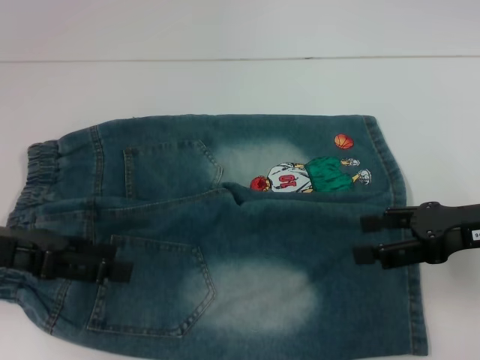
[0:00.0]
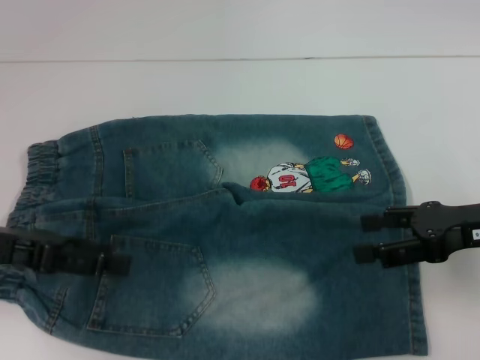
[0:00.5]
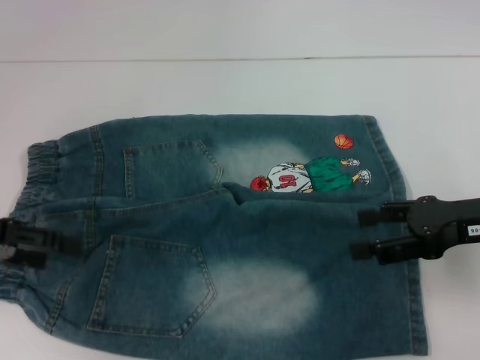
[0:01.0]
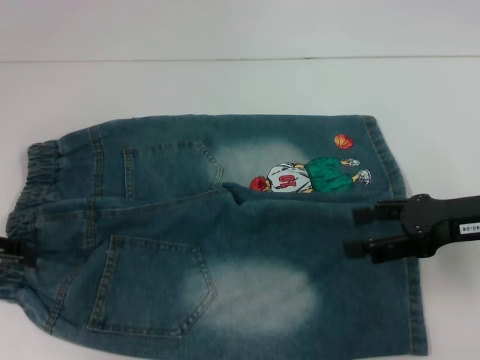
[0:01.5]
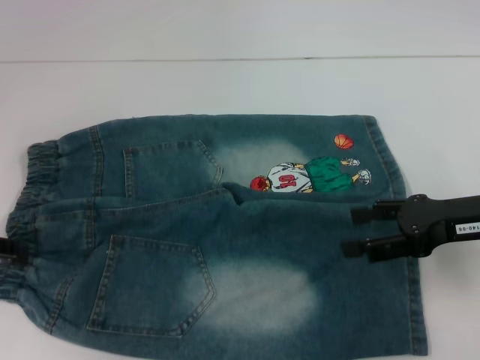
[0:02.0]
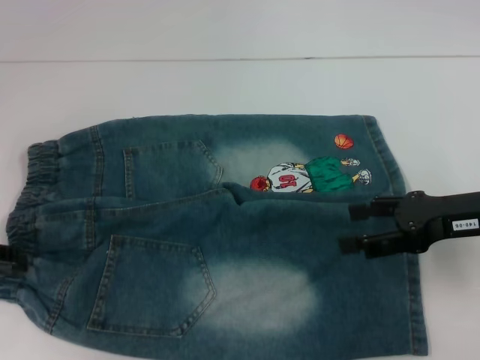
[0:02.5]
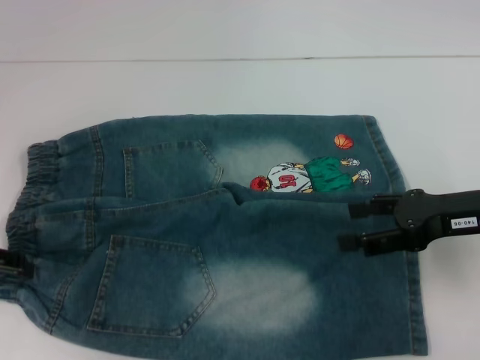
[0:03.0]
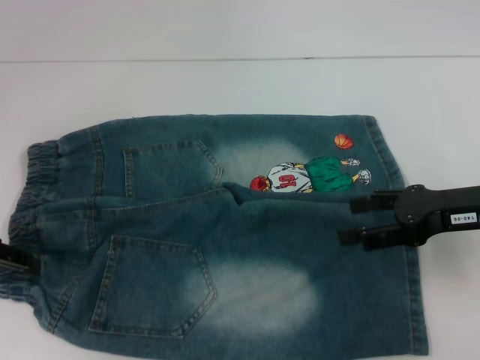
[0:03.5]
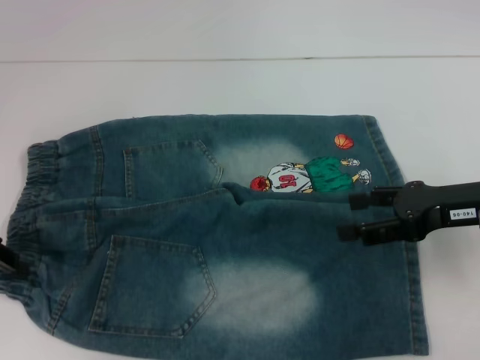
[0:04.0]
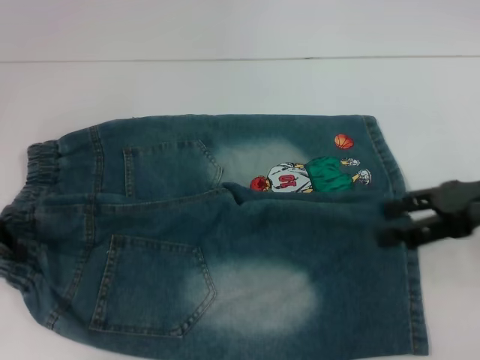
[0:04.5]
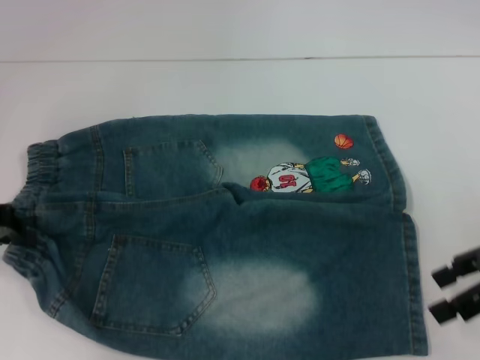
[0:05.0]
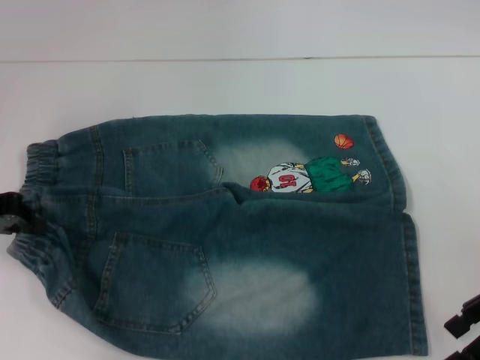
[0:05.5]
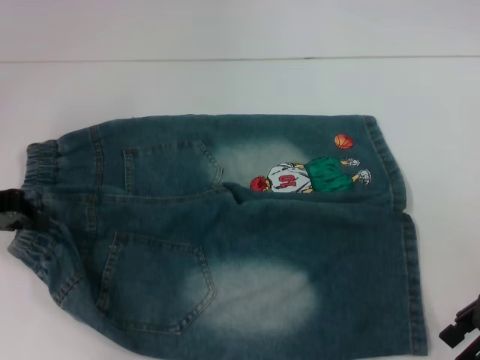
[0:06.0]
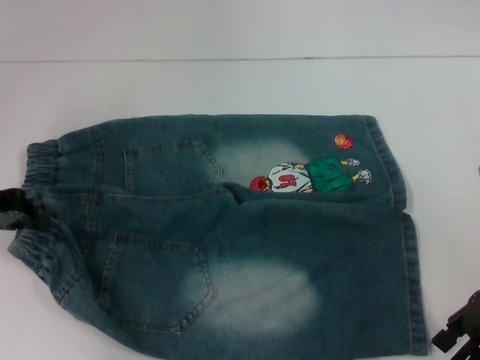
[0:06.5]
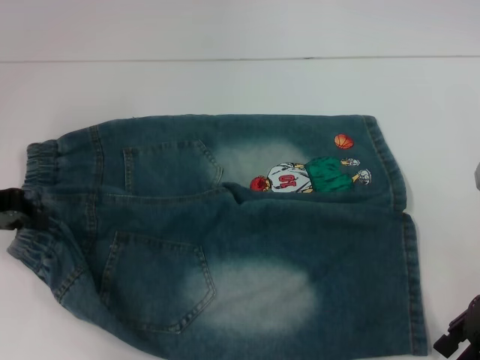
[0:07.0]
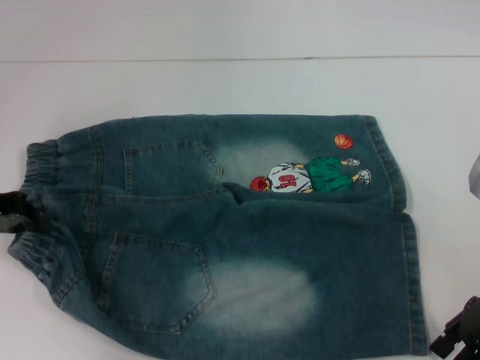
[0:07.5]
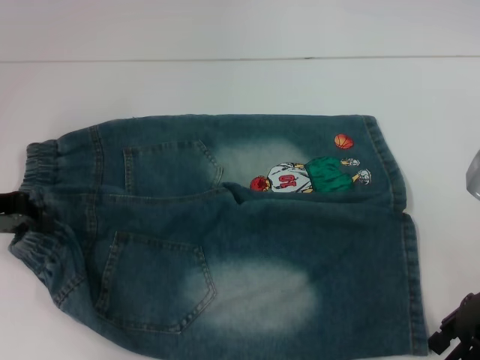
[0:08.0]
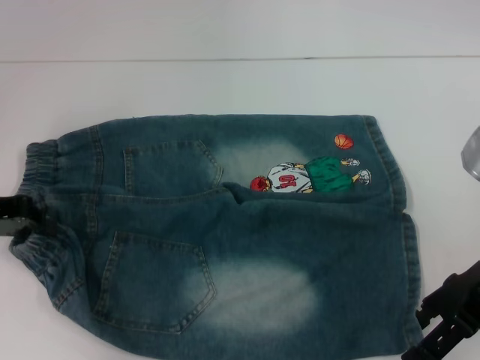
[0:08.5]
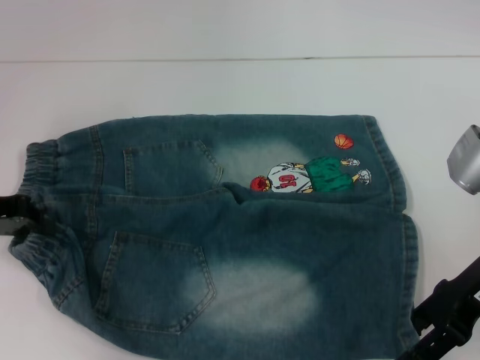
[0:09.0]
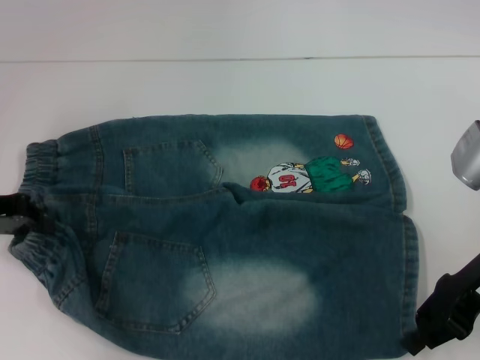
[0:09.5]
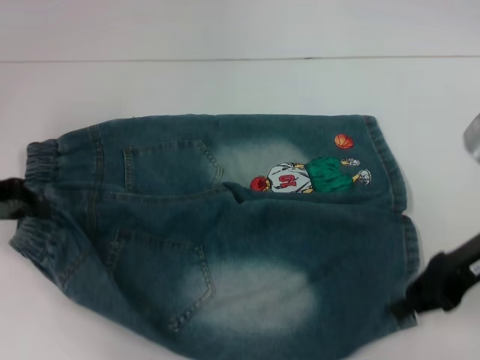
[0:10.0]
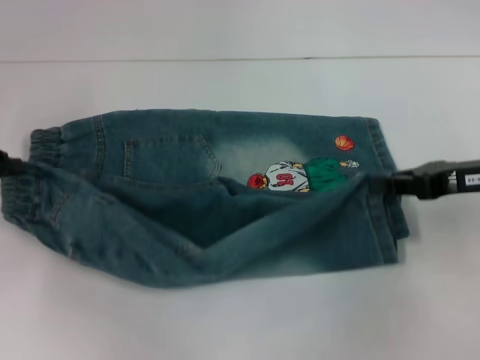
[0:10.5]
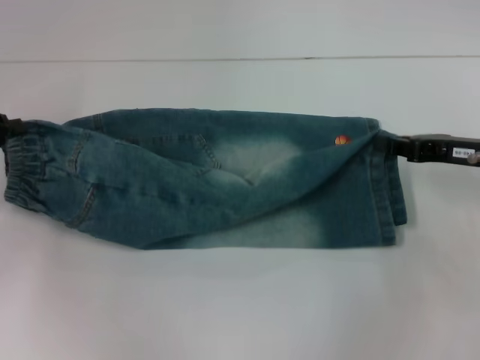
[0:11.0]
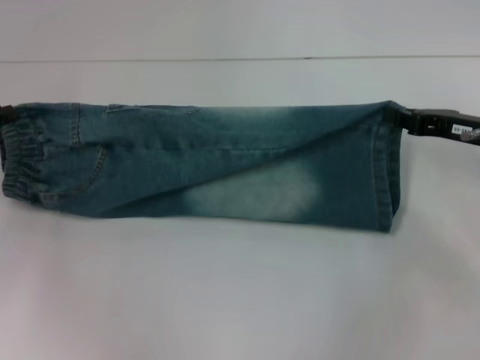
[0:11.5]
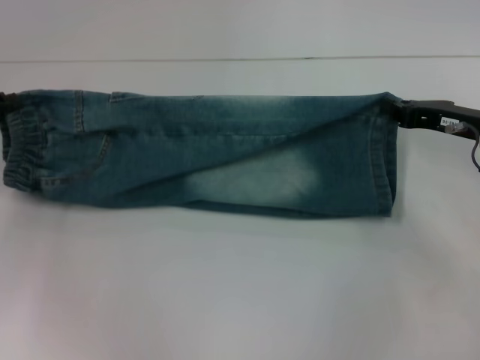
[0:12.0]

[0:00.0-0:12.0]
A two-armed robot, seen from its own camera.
Step, 0:00.0 to 0:04.0: Hold the lower left waistband with your left hand.
Step, 0:04.5 to 0:09.5: Grab the lower right pant leg with your right hand.
0:00.0 to 0:02.0: The left gripper travels to the left by roughly 5 cm.
0:02.0 to 0:04.0: The left gripper closes.
0:04.0 to 0:06.0: The left gripper closes up.
0:06.0 to 0:08.0: The grippers stay close to where they were, moving slightly.
0:08.0 to 0:10.0: The right gripper closes its fingers.
0:10.0 to 0:12.0: The right gripper travels forward by approximately 5 cm.

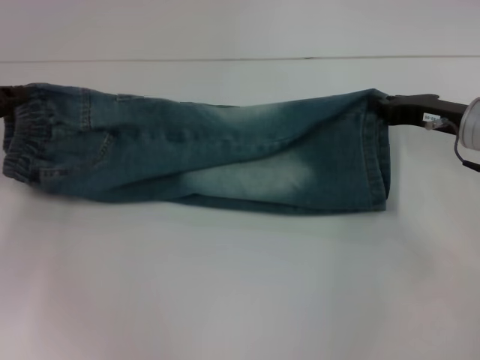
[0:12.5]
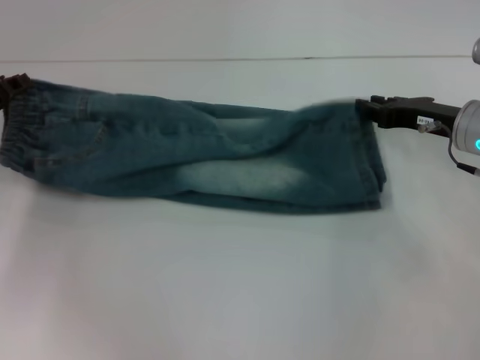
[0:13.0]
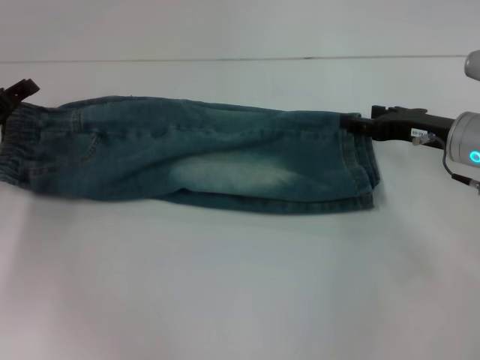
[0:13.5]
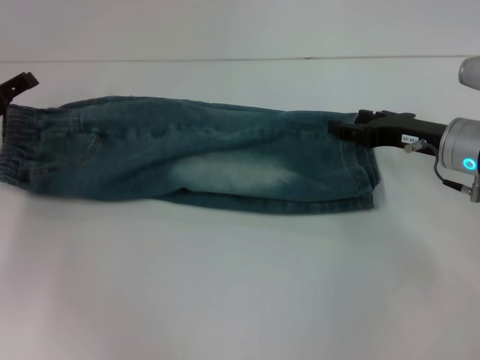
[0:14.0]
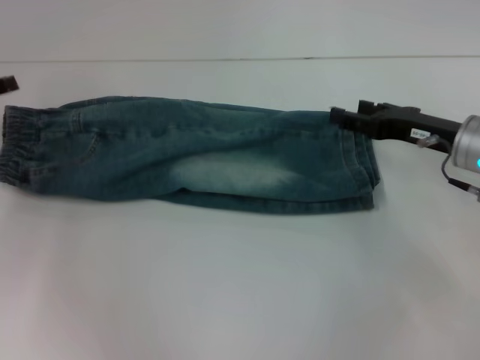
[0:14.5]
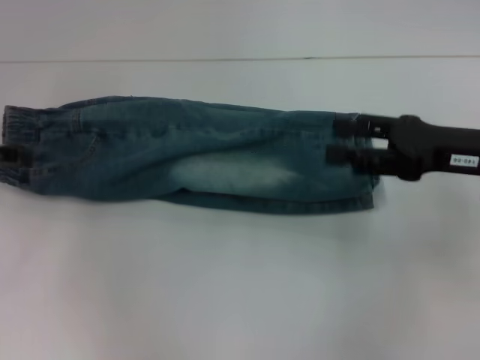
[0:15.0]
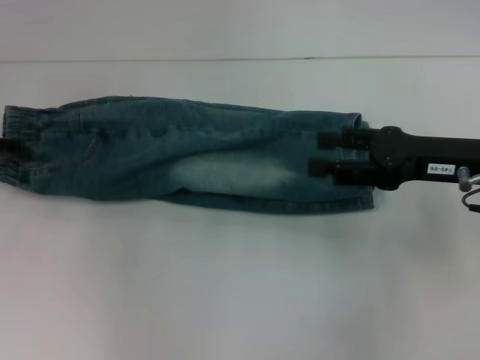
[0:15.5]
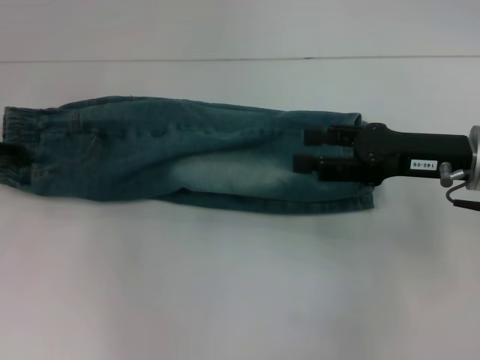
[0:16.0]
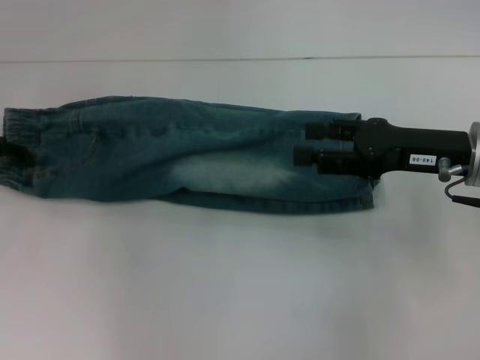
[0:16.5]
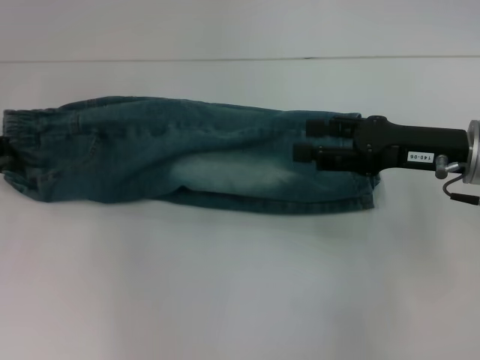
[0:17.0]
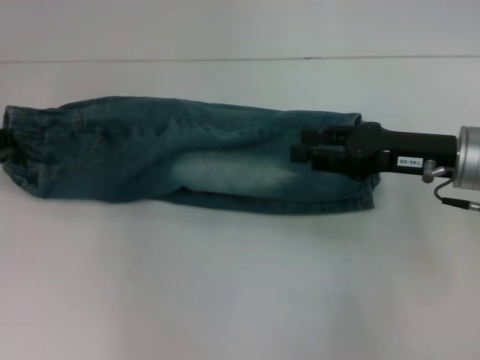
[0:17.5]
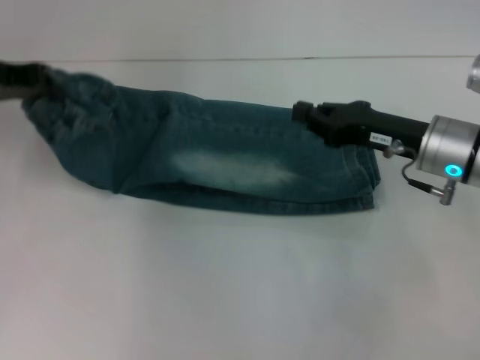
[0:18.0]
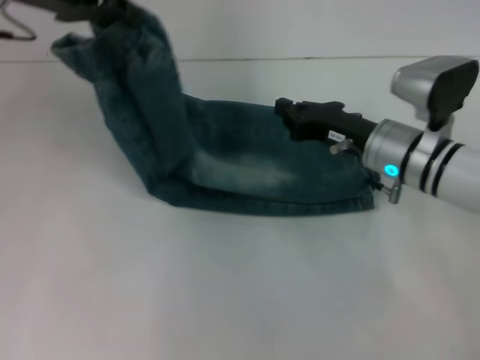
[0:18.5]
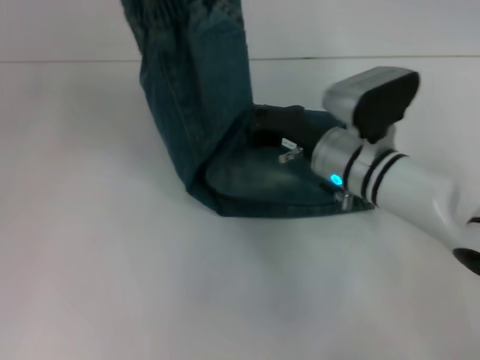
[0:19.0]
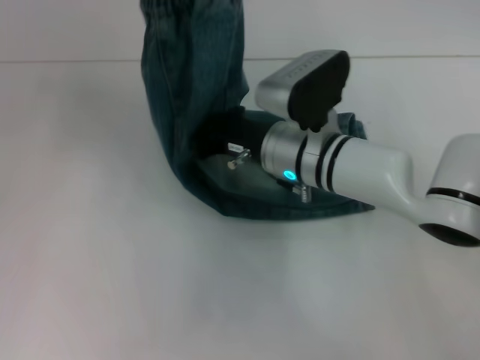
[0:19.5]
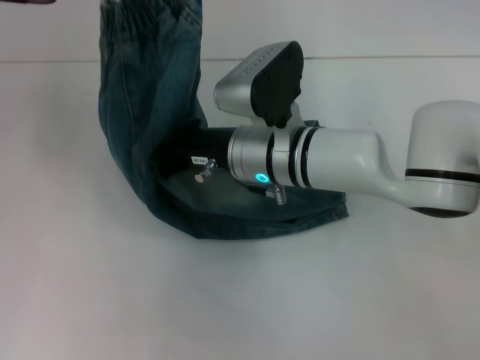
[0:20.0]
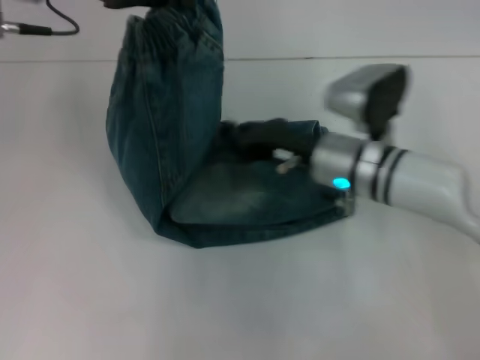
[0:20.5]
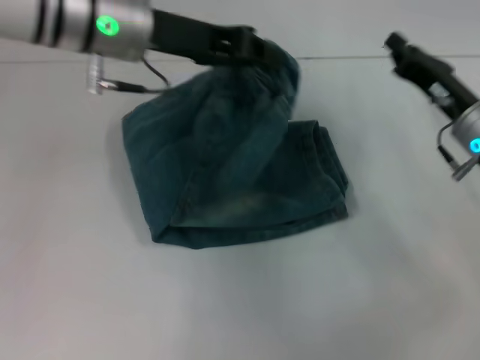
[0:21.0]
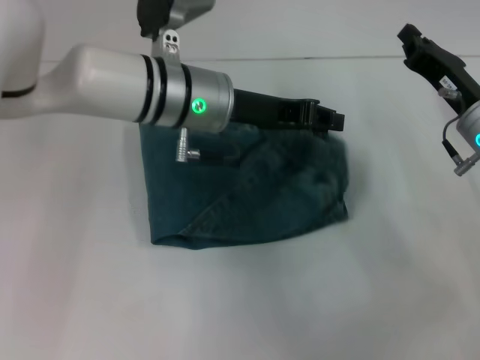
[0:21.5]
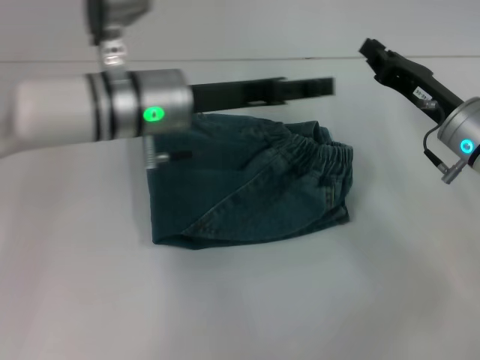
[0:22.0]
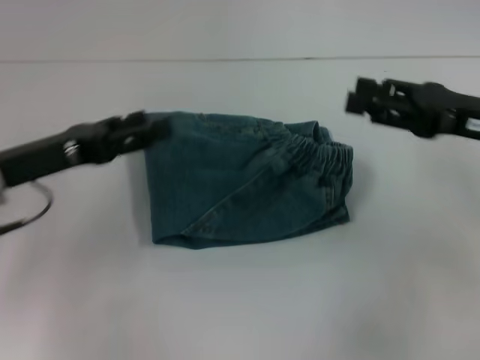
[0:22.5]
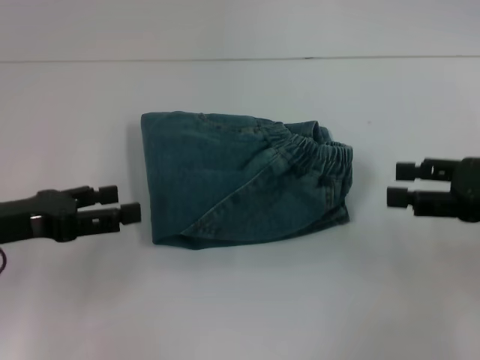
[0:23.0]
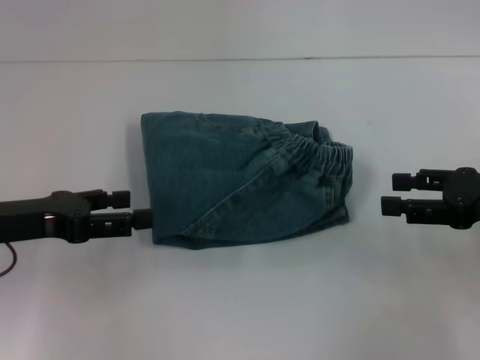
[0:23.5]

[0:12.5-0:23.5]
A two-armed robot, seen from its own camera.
Step, 0:13.5 to 0:17.0: Hold the waistband with your left hand.
Step, 0:17.5 to 0:19.5: Press the middle of the pants with your right hand.
Step, 0:20.5 to 0:21.5: Fold to the right with your left hand.
0:12.5 to 0:14.5: The right gripper opens up. The left gripper opens its fingers.
0:14.5 to 0:16.0: The right gripper shifts by about 5 cm.
0:16.0 to 0:18.0: The right gripper closes up. The left gripper is displaced upward and to the right by about 10 cm, and closes.
0:18.0 to 0:20.0: The right gripper travels to the left by some 20 cm. Meanwhile the left gripper shifts some 15 cm upward and to the right.
0:20.0 to 0:21.5: The right gripper is displaced to the right by about 20 cm. The left gripper shifts roughly 20 cm downward and to the right.
0:21.5 to 0:23.5: The left gripper shifts roughly 25 cm to the left and backward, and opens its fingers. The right gripper shifts about 10 cm backward and to the right, and opens up.

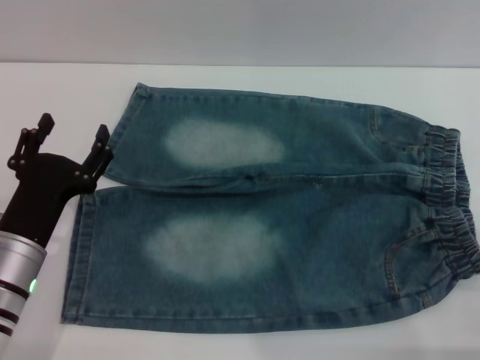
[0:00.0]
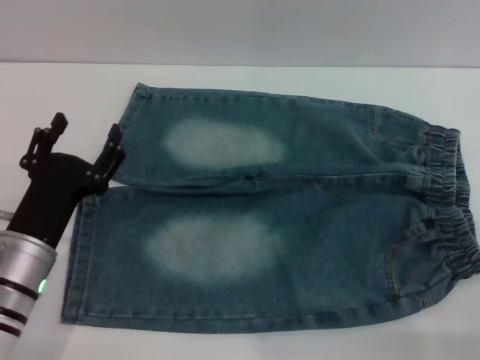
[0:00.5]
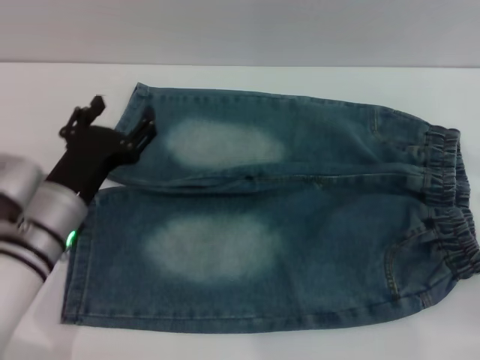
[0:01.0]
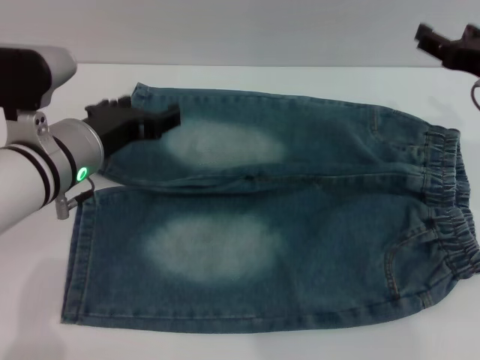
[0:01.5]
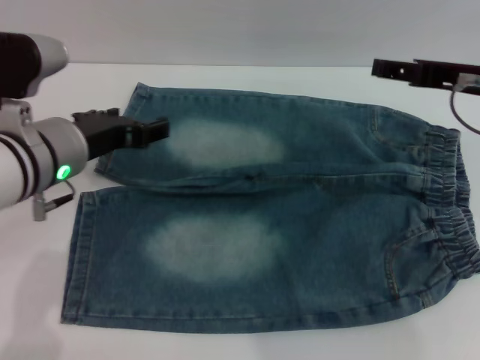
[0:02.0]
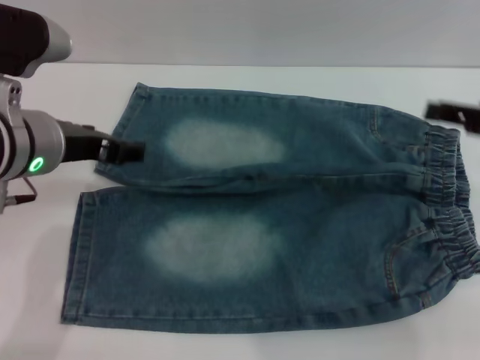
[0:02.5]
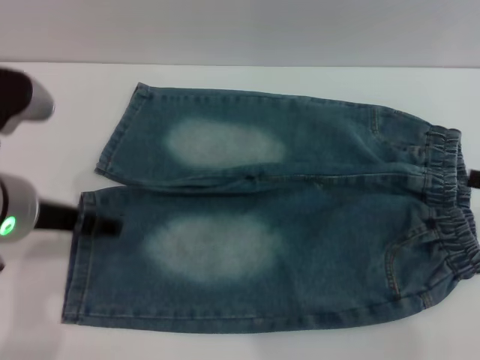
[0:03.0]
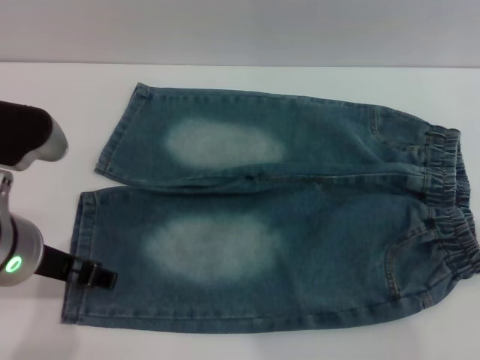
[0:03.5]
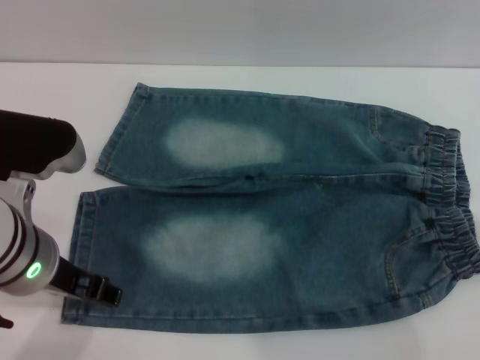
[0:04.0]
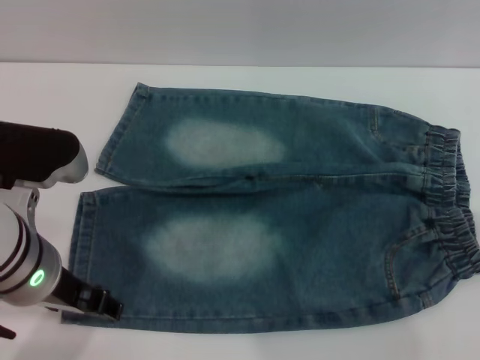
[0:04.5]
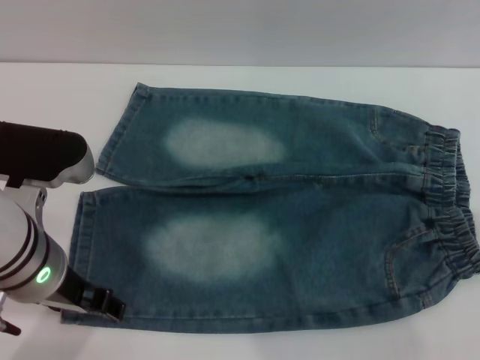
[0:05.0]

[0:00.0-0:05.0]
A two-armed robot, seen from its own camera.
0:00.0 to 0:02.5: The grippers both shift upward and forward by some 15 cm.
0:02.5 to 0:05.0: The right gripper moves to the right, some 10 cm; the left gripper travels backward by about 5 cm.
